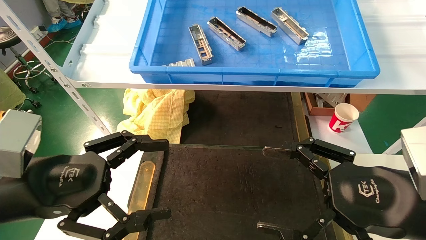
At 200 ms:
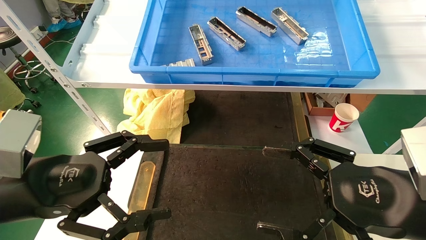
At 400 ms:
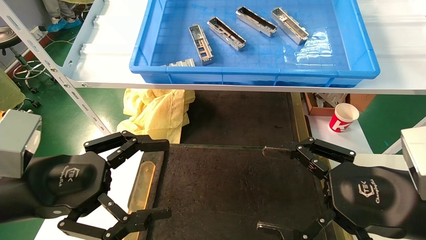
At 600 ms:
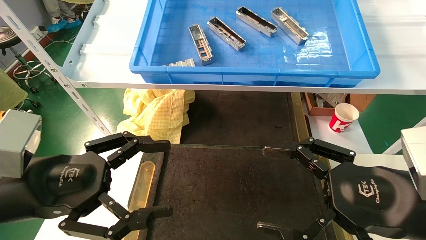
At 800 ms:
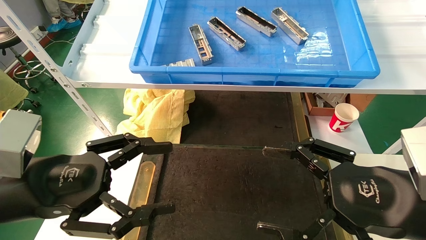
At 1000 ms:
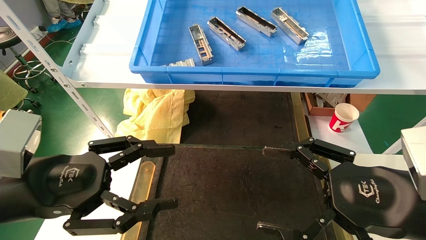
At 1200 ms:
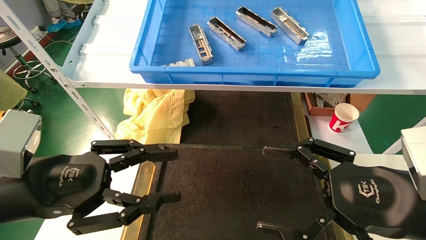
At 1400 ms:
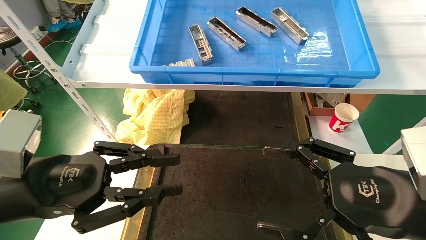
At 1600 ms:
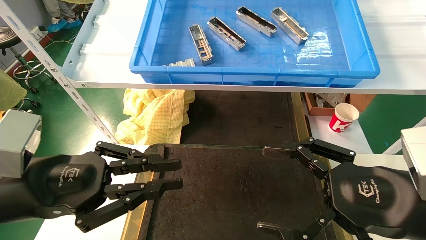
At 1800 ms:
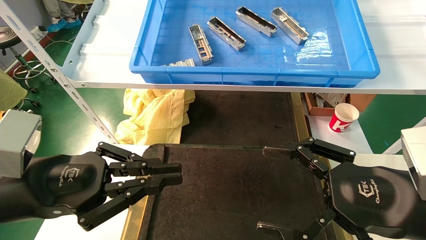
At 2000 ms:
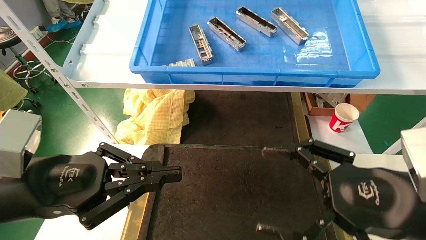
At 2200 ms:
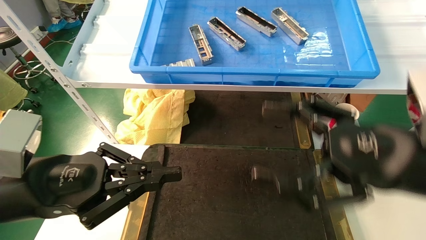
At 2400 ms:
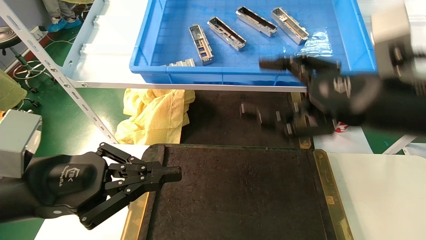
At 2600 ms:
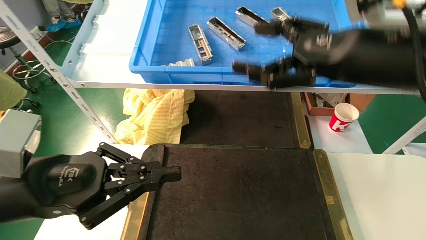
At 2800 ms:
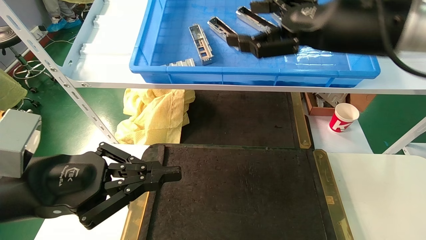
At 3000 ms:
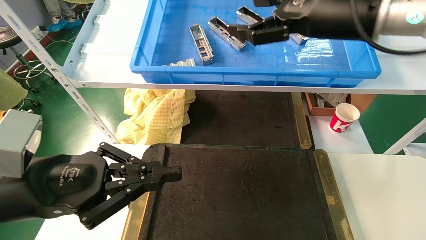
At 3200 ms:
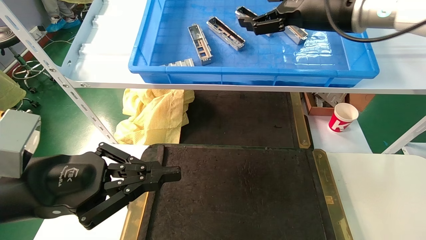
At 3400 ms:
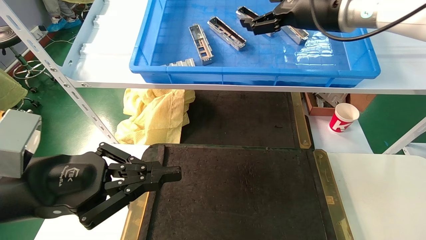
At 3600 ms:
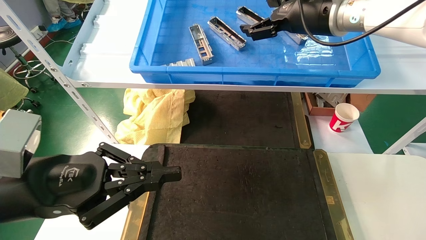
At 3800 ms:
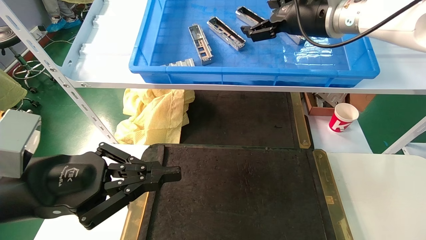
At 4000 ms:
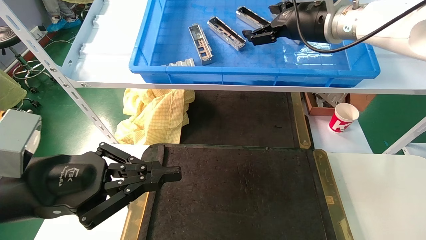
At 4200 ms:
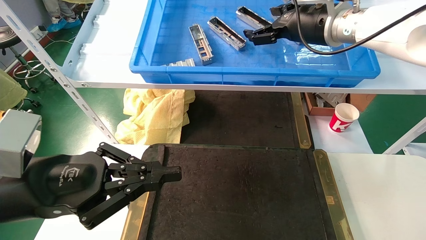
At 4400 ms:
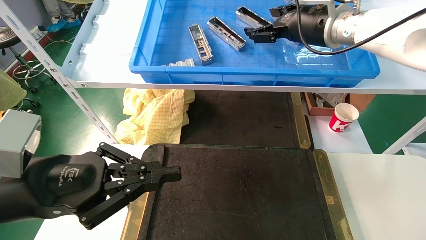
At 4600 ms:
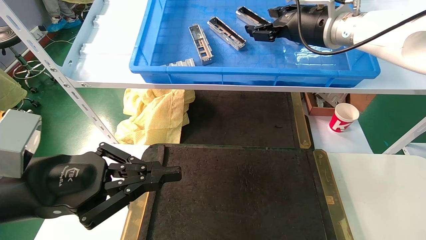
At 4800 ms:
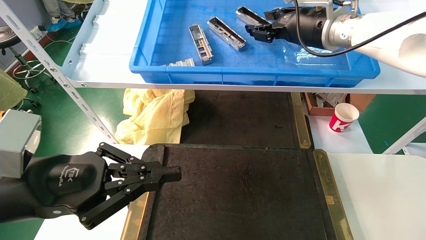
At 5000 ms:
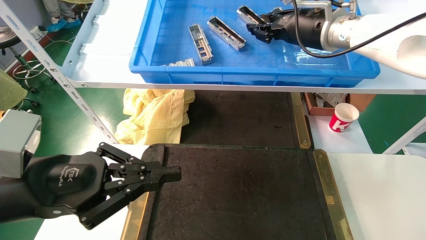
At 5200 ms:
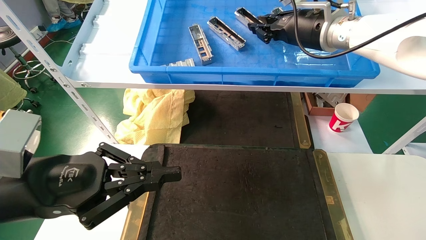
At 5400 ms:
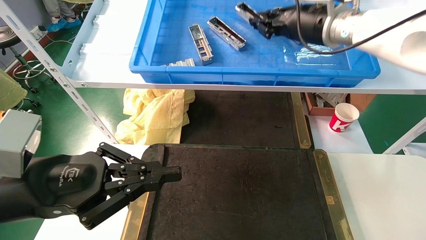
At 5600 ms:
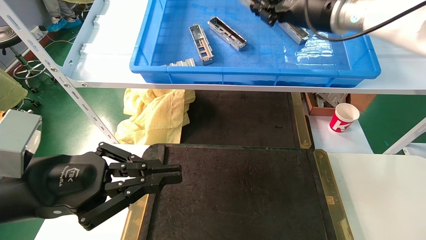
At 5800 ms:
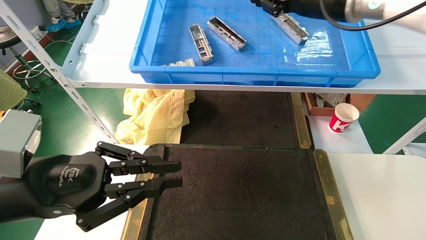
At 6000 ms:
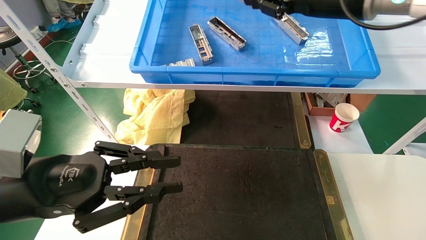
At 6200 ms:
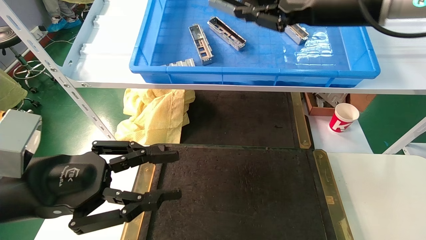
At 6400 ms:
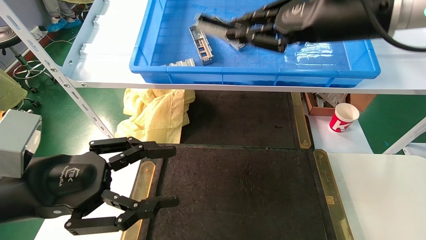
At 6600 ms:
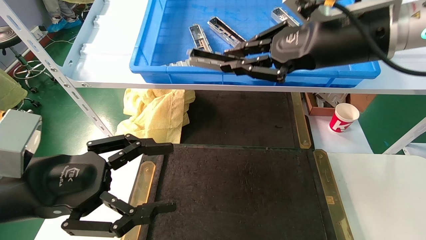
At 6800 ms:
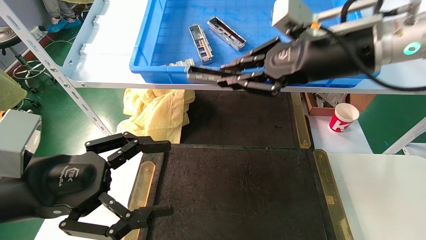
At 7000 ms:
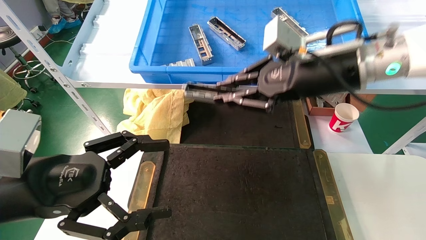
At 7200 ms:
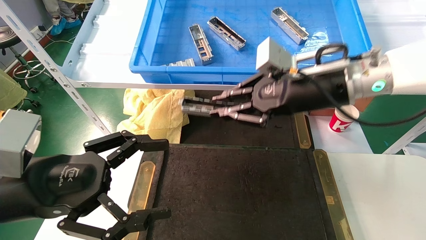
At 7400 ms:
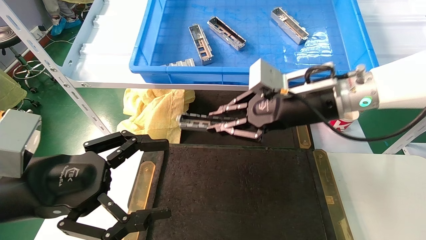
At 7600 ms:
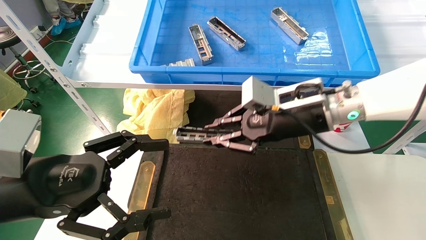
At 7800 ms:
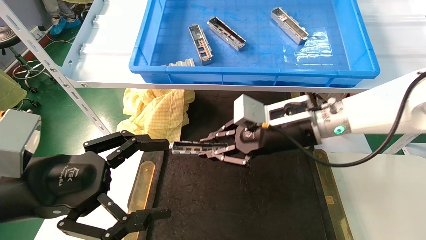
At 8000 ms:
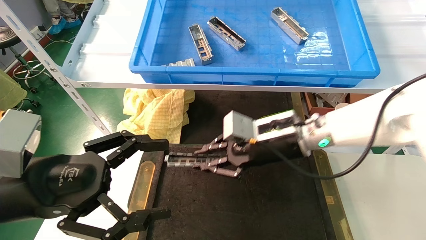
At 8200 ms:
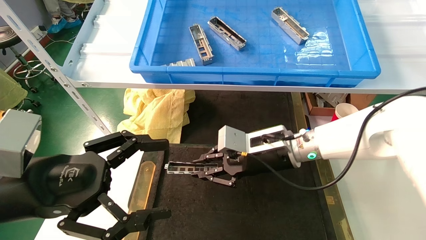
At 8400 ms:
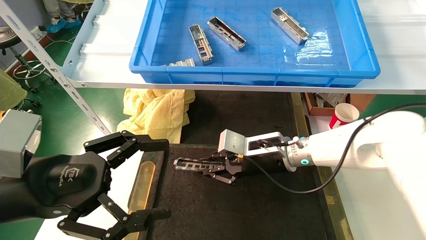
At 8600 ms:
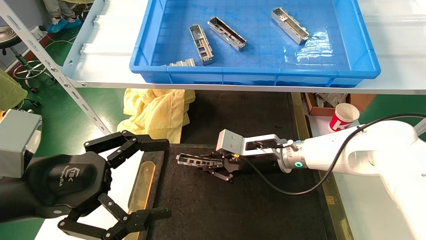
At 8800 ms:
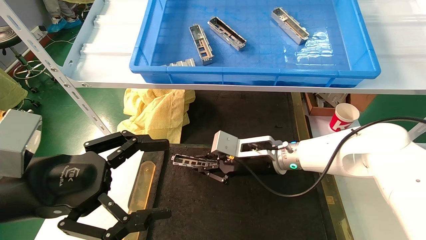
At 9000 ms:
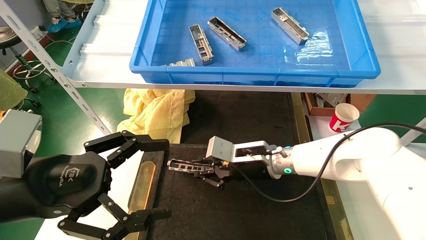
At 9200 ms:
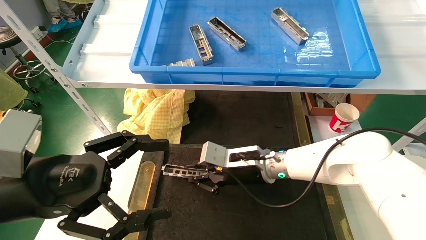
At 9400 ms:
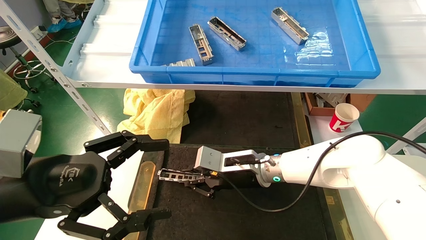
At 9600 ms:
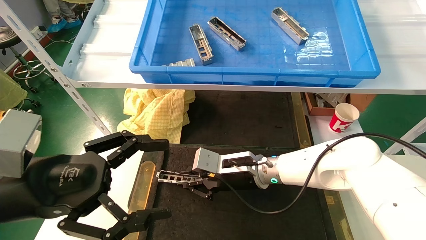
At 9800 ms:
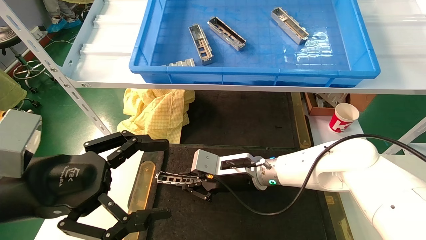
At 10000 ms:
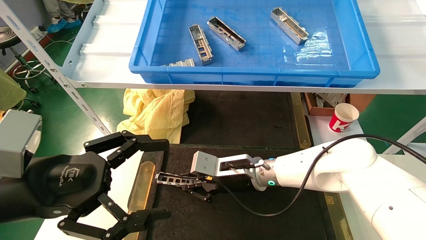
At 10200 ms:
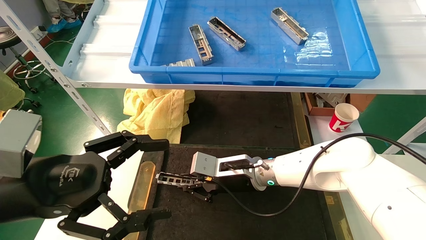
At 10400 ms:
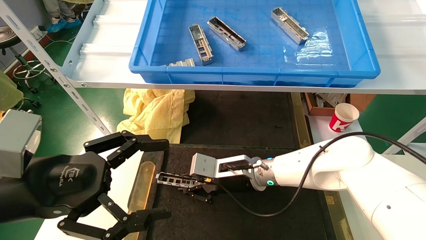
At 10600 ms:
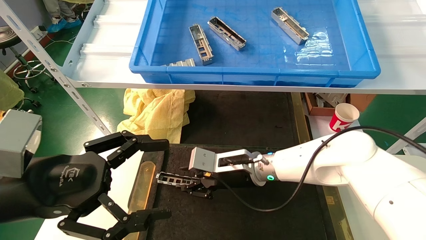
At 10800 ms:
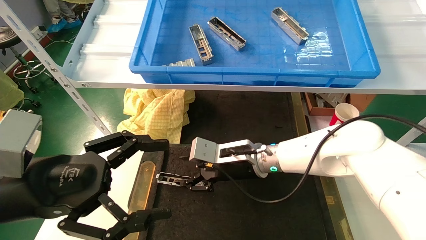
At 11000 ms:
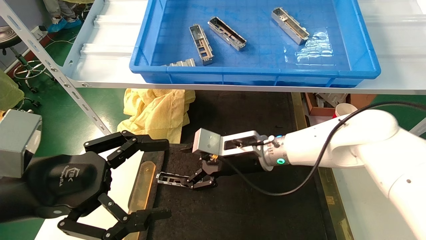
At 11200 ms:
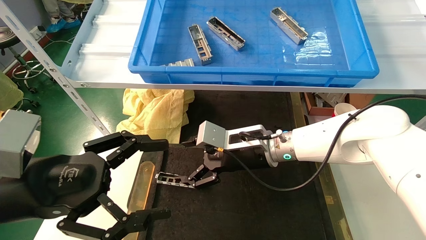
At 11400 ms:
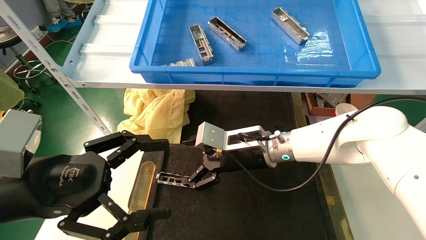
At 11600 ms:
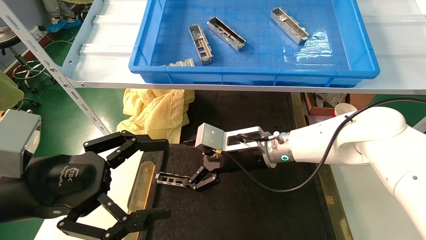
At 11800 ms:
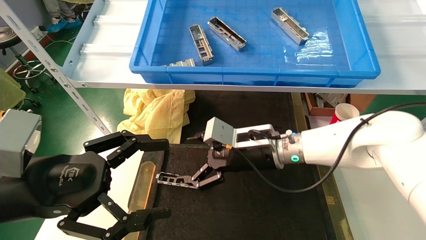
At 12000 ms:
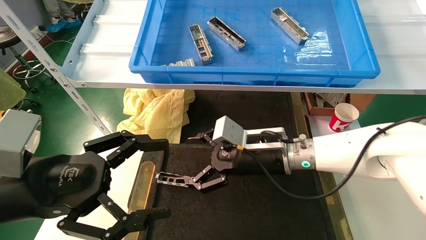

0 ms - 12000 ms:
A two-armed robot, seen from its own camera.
Task of the whole recording: grasp the part and place them on the black container.
Step, 2400 ms - 5800 ms: Pick up and lift the front USB bracket from the feeding area.
Step, 6000 ms - 11000 ms: Place the front USB bracket into the box.
0 ms - 1600 ms: The left gripper closes up.
1600 ms - 3000 ms: The right gripper shifts some 25 cm upward and forward.
3000 ms - 4400 ms: The right gripper moves forward, roughly 10 cm.
4400 ms - 6000 ms: The right gripper goes roughly 5 cm backward, and closes up.
6000 ms - 7600 ms: The left gripper opens up. The right gripper moves downward, roughly 15 cm.
7600 ms - 9000 ms: The right gripper goes about 15 cm downward, to the left and forward.
9000 ms - 10400 ms: The grippers make only small movements.
10400 ms - 12000 ms: The right gripper is displaced upward by about 5 cm, and opens.

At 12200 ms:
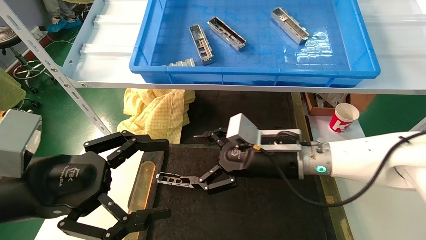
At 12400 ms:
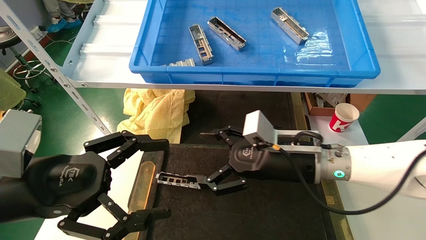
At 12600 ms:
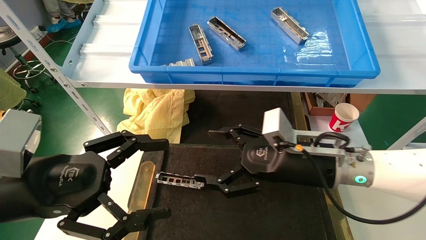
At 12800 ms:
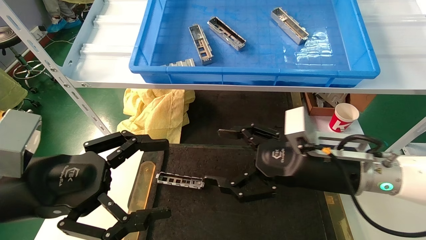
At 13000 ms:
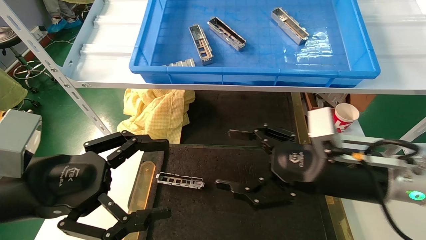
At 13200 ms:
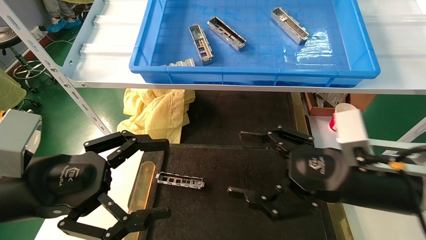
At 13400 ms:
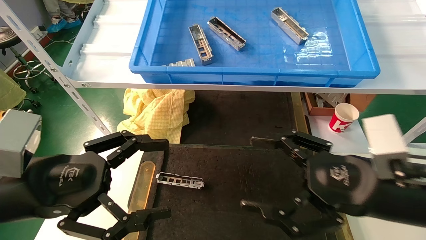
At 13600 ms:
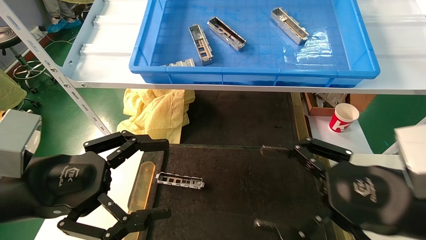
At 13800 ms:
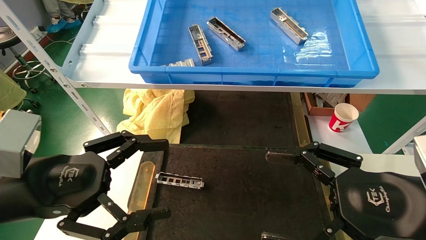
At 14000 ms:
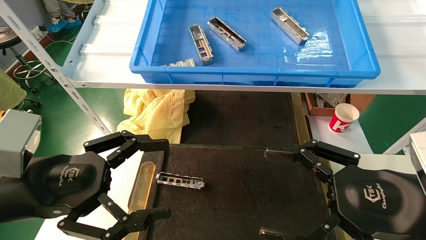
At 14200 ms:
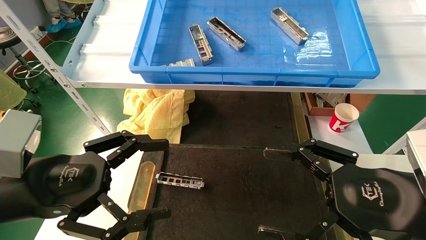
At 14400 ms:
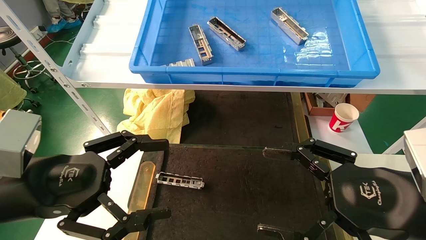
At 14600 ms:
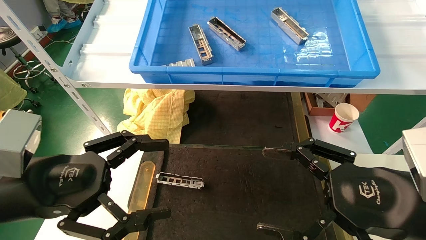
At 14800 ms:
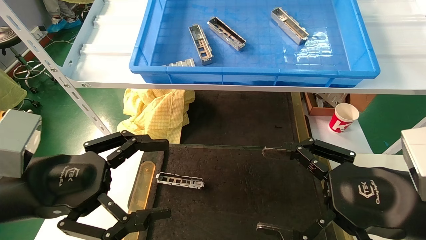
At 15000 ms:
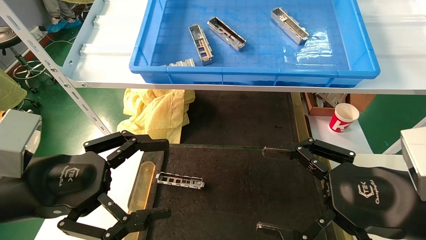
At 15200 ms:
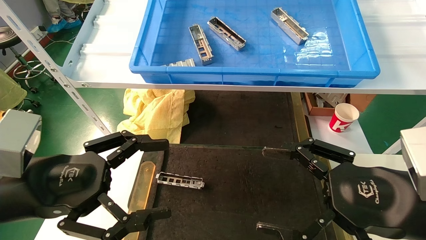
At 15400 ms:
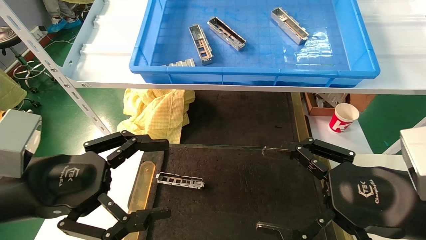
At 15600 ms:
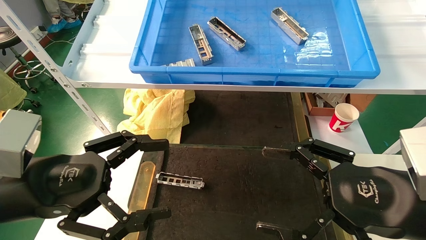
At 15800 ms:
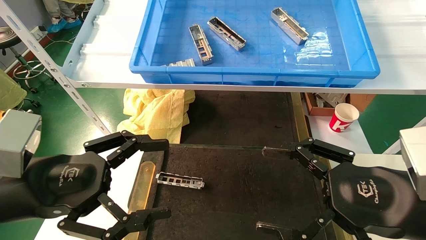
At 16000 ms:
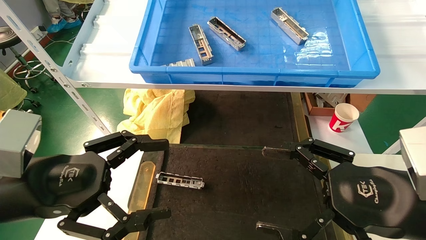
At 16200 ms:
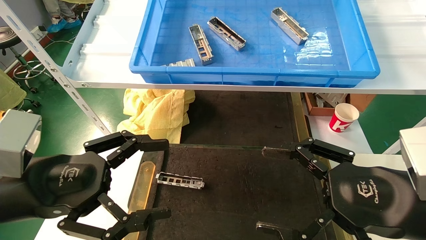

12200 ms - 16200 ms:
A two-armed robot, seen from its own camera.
Task of the whole recording: grasp the part and place them on the black container.
12200 ms - 13600 ms: The right gripper moves backward and to the right, approximately 20 cm.
13600 ms - 14800 ms: The grippers stay close to where they were, moving slightly.
14800 ms - 16200 ms: The two grippers keep their place.
